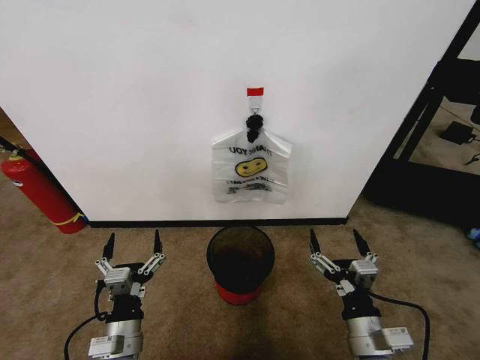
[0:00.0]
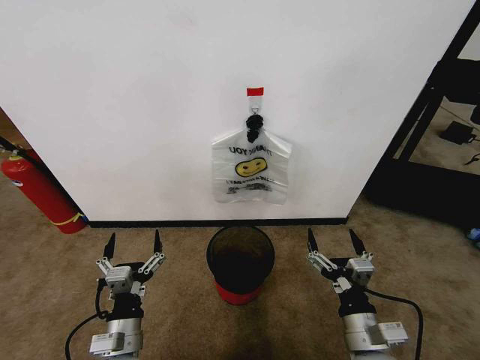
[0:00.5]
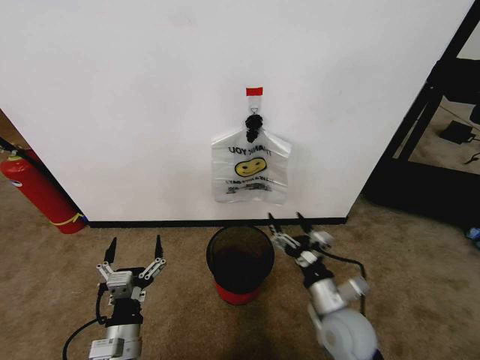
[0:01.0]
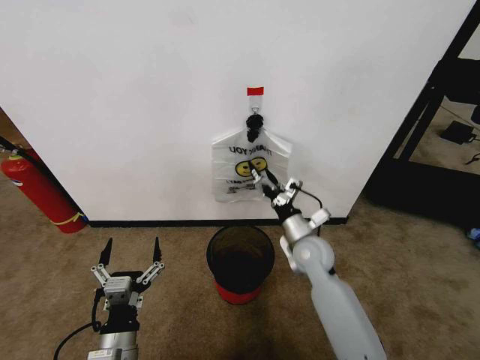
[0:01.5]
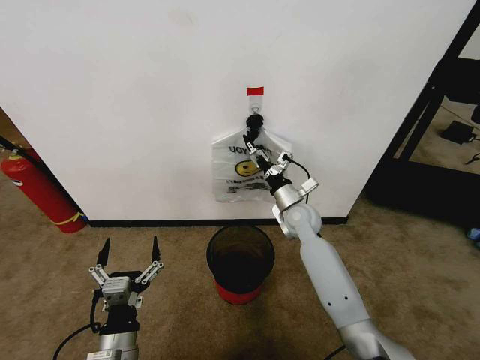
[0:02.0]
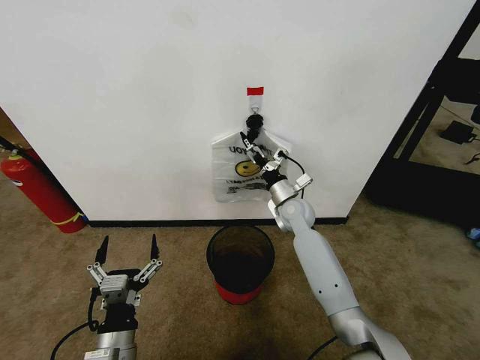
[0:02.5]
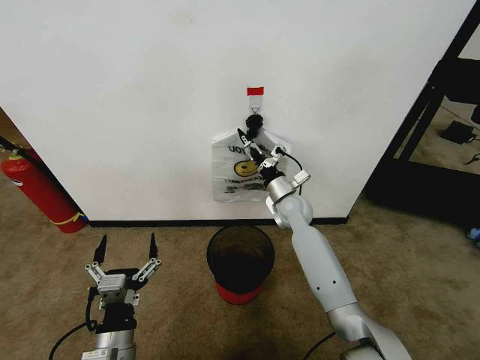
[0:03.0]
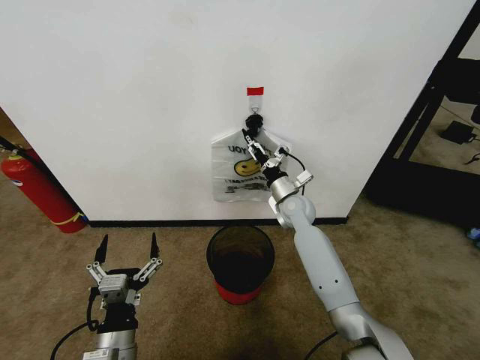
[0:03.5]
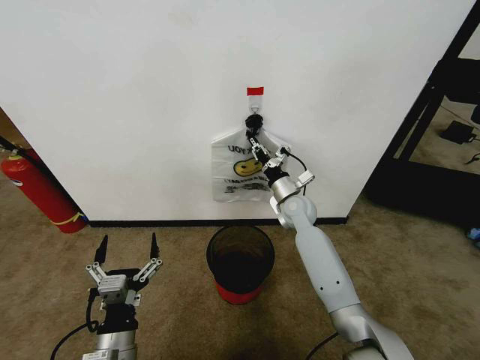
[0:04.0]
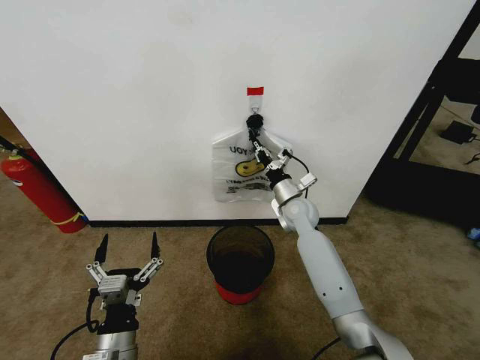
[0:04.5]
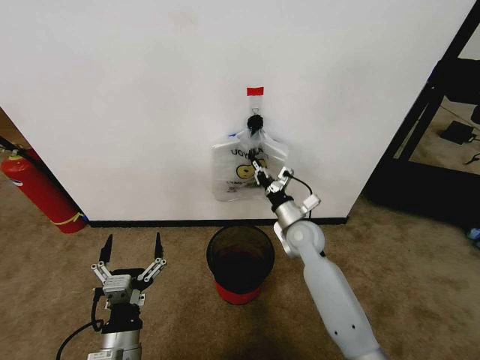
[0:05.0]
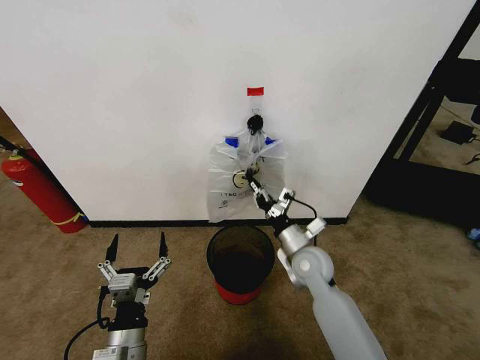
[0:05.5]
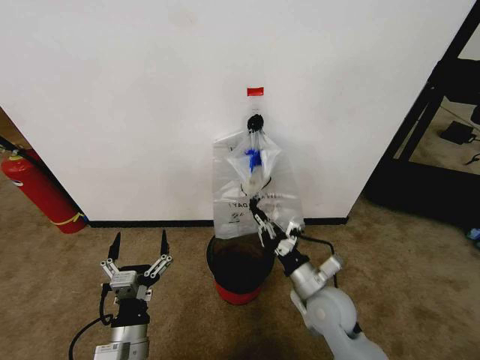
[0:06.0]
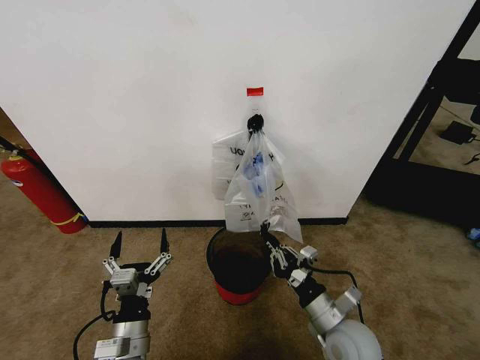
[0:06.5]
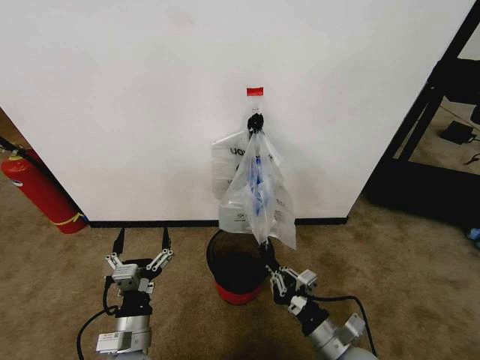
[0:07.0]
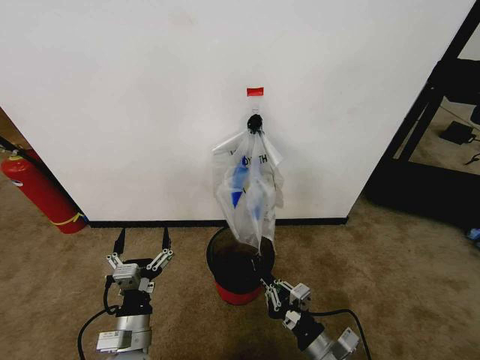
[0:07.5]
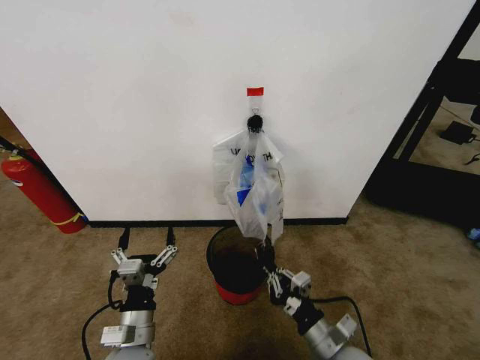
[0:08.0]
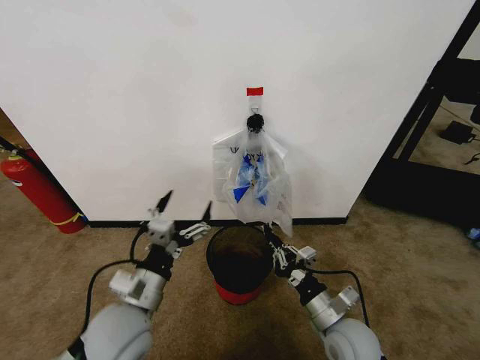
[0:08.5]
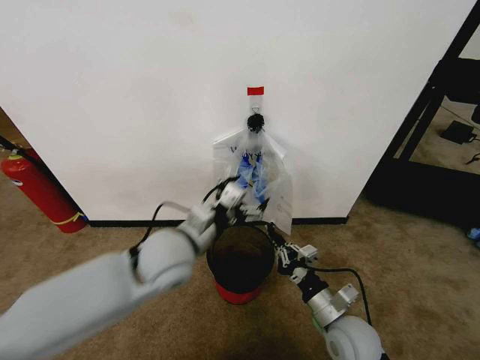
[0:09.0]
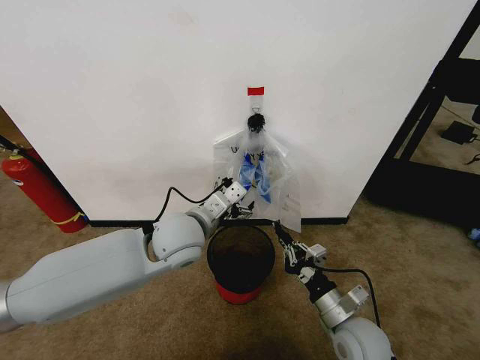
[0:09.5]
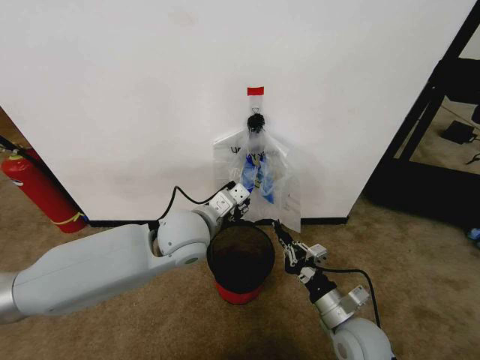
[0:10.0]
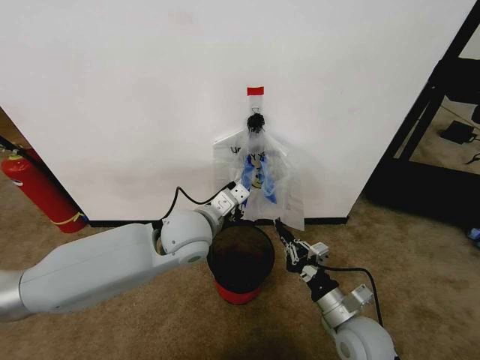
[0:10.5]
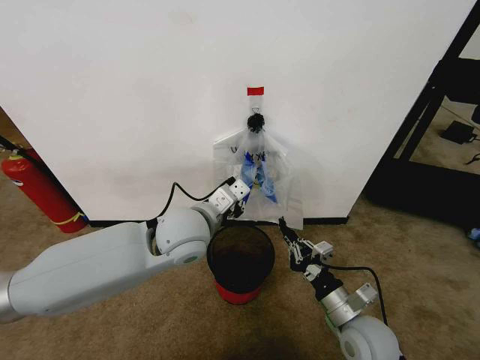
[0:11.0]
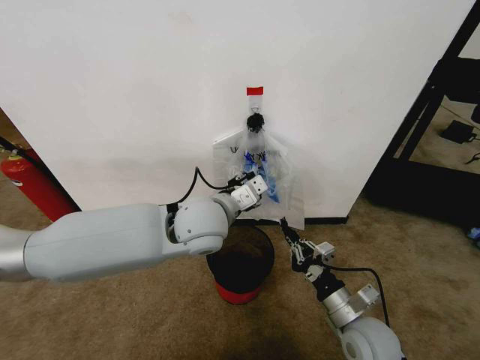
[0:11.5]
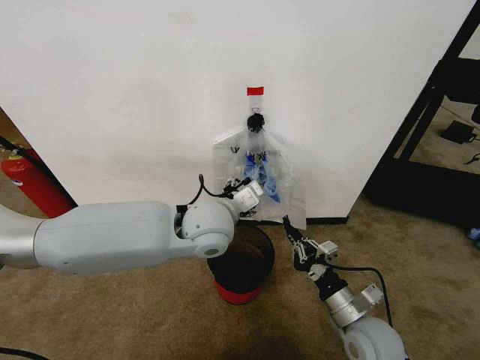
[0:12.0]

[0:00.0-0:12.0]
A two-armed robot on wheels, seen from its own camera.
Task of the whole recording: Pick up the garbage bag from the wall and place it over the trash bin.
0:02.0 to 0:04.0: The right gripper closes.
0:04.0 to 0:06.0: The right gripper travels backward by about 25 cm.
0:06.0 to 0:08.0: The right gripper travels backward by some 10 cm.
0:08.0 to 0:10.0: The left gripper goes roughly 25 cm forward, upward and to the right, and closes up. The right gripper changes place by some 5 cm.
0:10.0 to 0:12.0: The left gripper moves roughly 5 cm, and closes and opens again.

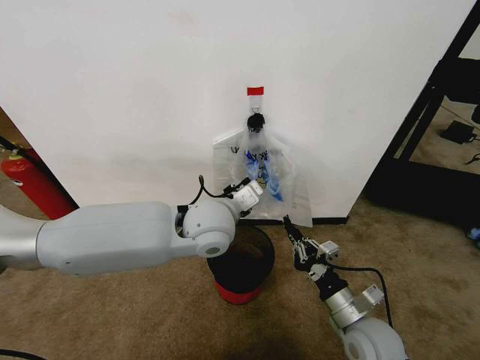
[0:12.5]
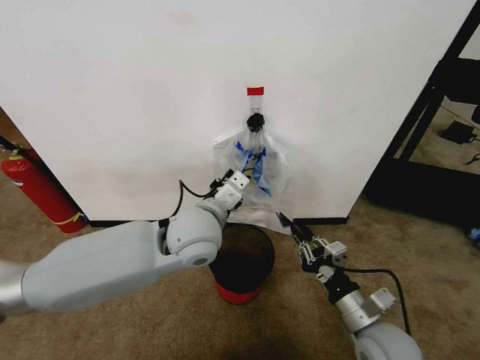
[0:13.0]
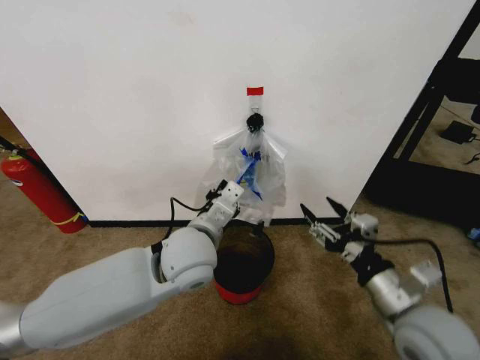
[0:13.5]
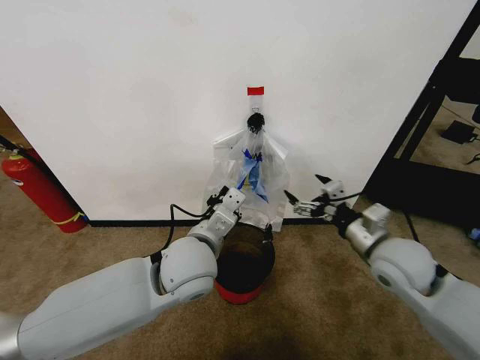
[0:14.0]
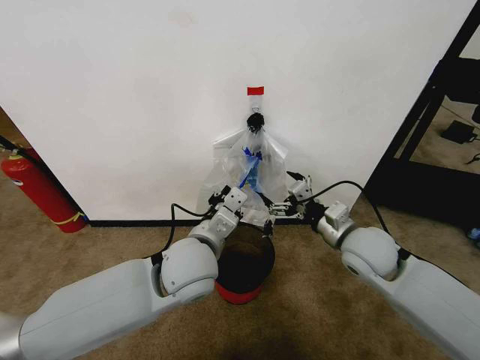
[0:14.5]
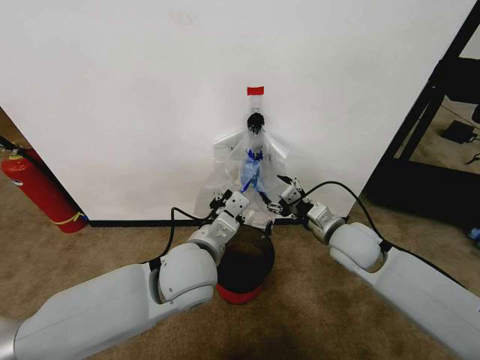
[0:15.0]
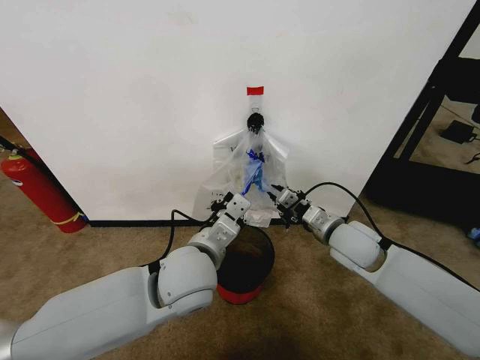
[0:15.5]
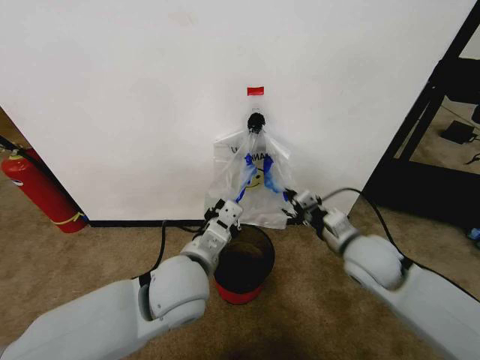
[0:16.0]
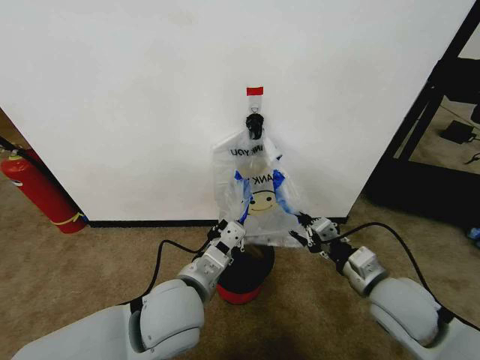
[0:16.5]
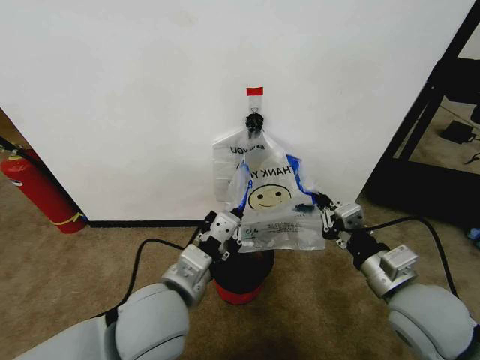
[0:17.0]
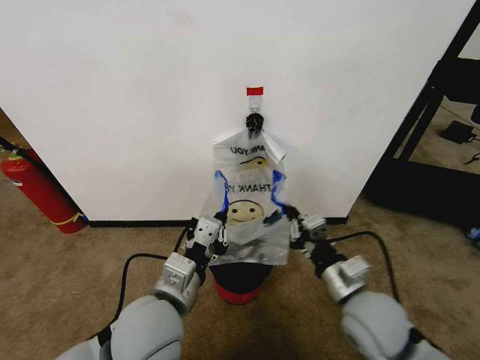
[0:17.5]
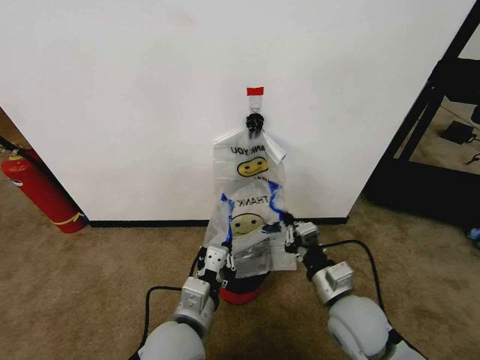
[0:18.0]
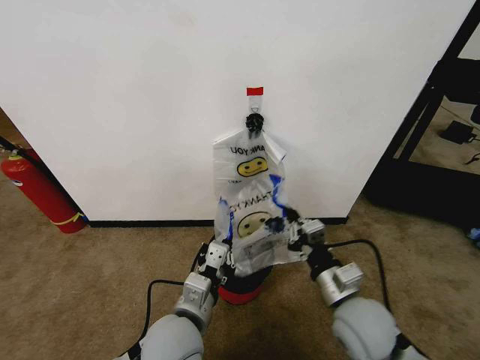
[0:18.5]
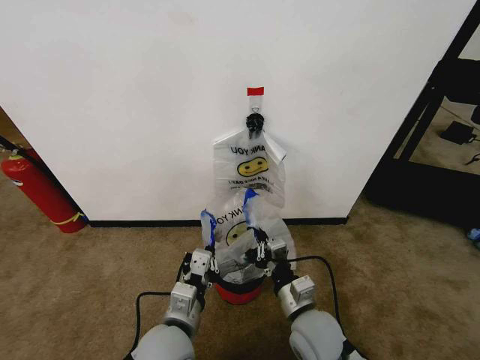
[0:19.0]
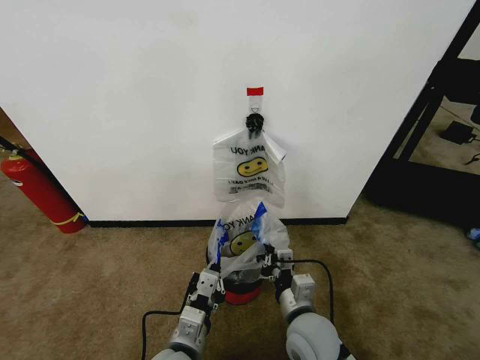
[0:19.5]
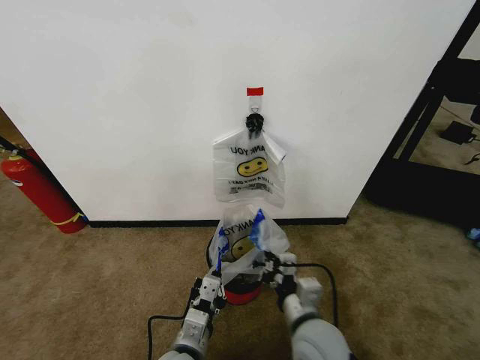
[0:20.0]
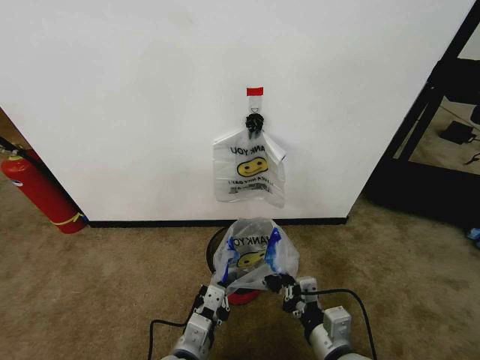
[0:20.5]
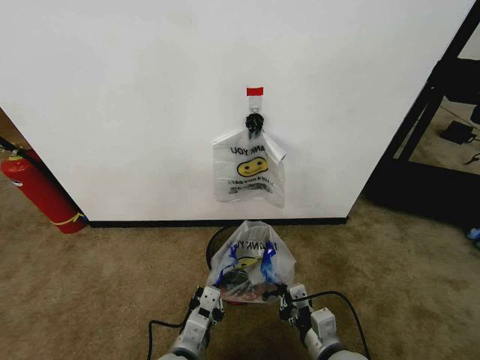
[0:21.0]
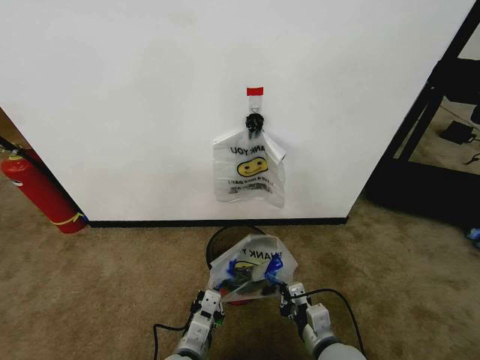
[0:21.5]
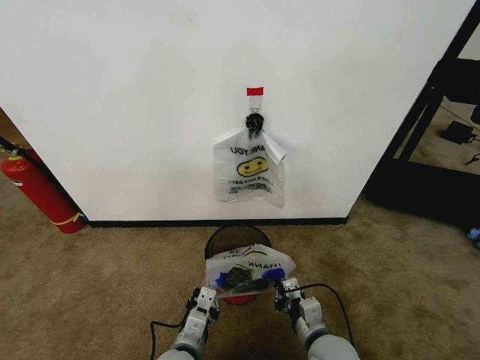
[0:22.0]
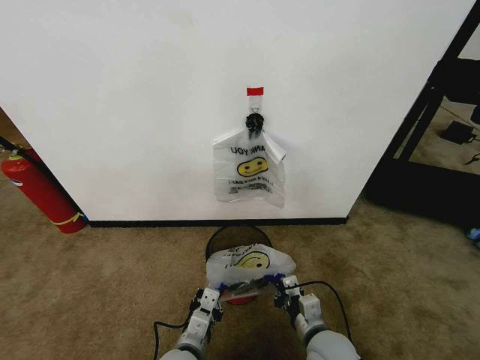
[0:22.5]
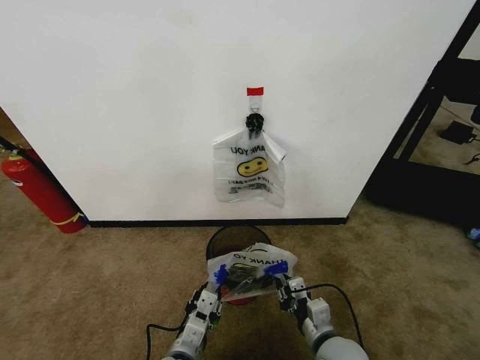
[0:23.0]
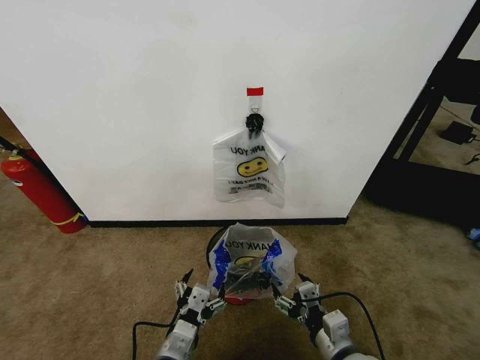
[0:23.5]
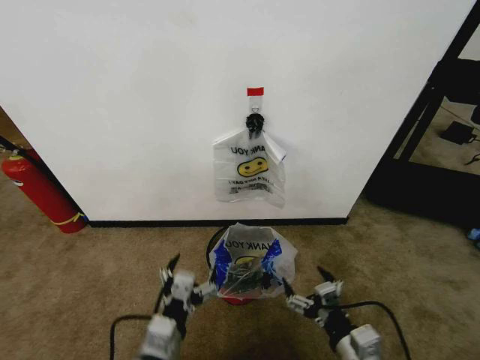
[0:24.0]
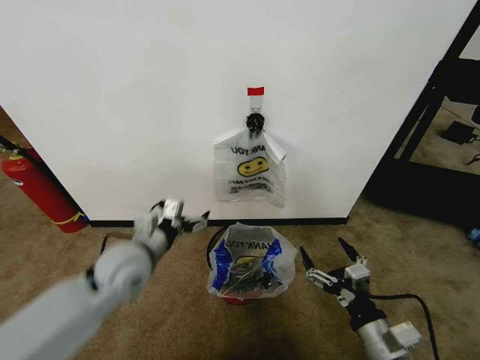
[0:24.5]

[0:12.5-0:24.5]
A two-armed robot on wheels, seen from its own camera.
Task of the whole recording: Pick up the garbage bag from the wall and place it over the trash bin.
0:12.5 to 0:14.5: The left gripper goes approximately 5 cm backward; the right gripper shifts about 20 cm forward and upward, and opens up.
0:14.5 to 0:16.5: The two grippers go roughly 10 cm backward. The right gripper closes.
0:16.5 to 0:18.5: The left gripper ends up approximately 5 cm from where it was. The right gripper travels to the left by some 5 cm, and travels downward and back again, approximately 5 cm each way.
0:18.5 to 0:20.5: The right gripper moves backward, about 10 cm. Meanwhile the left gripper moves downward and backward, approximately 10 cm.
0:20.5 to 0:22.5: The left gripper shifts by about 5 cm. Meanwhile the right gripper moves downward and forward, some 10 cm.
0:22.5 to 0:24.5: The left gripper goes some 25 cm upward, forward and to the left, and opens up, while the right gripper travels to the right, upward and backward by roughly 15 cm, and opens its fingers.

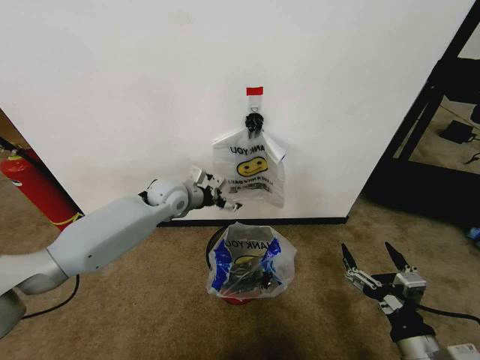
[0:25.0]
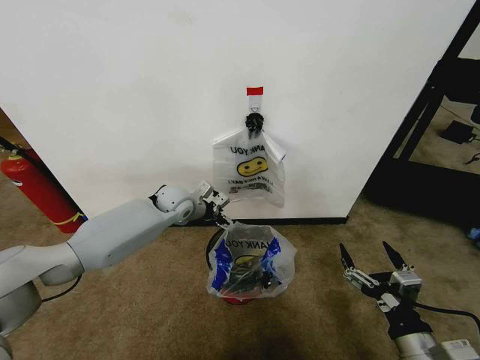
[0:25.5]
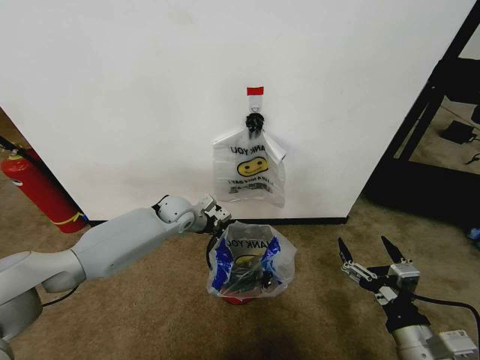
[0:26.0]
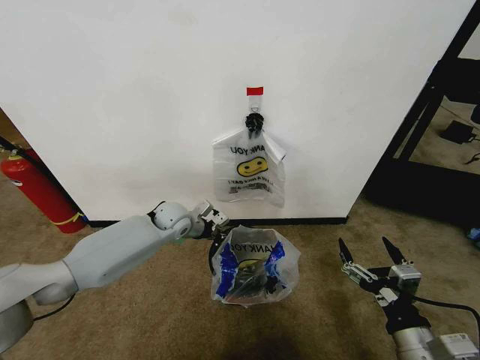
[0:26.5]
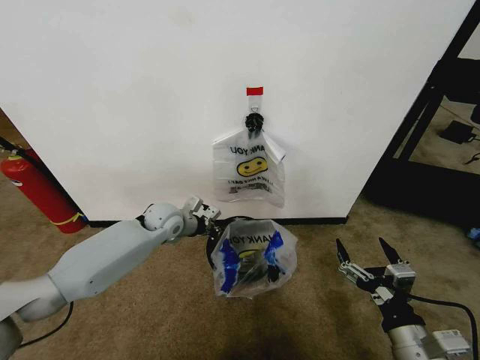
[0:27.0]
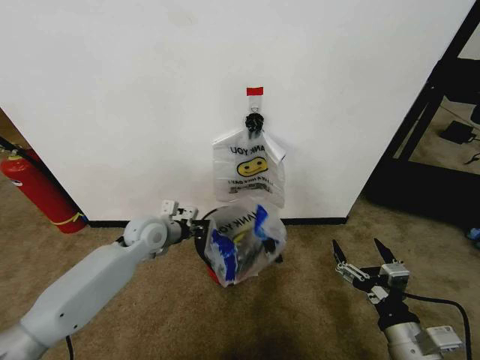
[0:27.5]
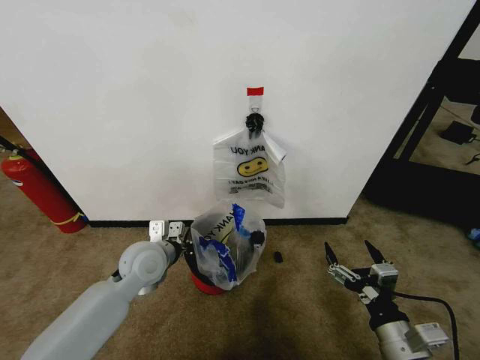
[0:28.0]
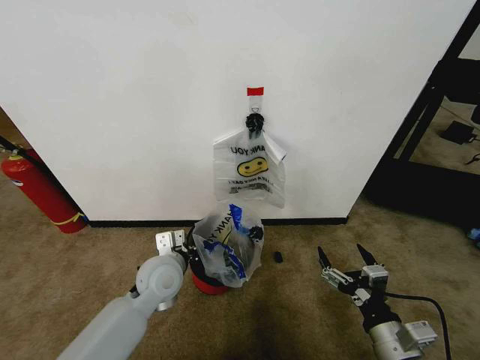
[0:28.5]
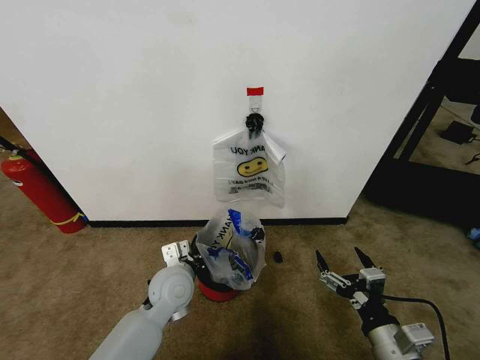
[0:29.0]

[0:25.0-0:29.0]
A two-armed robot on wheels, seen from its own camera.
Task of the whole recording: Pick up the garbage bag from the wall and place it over the trash bin.
0:25.0 to 0:27.0: The left gripper goes roughly 5 cm downward, and closes its fingers.
0:27.0 to 0:29.0: The left gripper goes some 15 cm backward.
